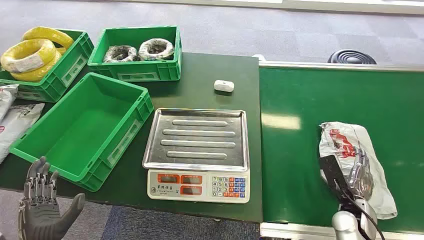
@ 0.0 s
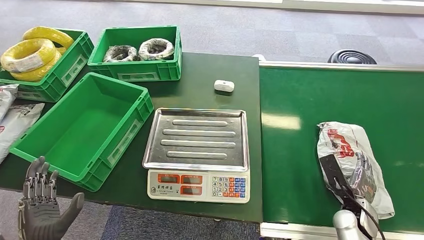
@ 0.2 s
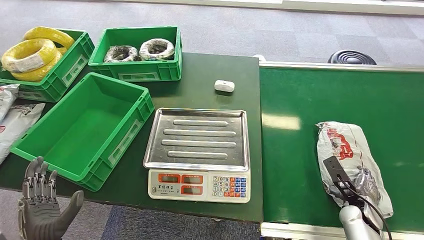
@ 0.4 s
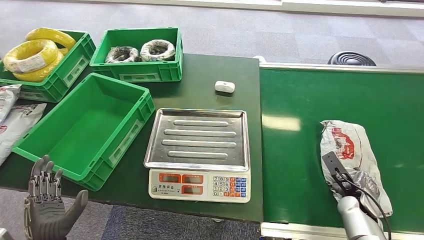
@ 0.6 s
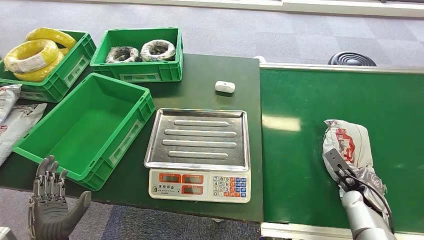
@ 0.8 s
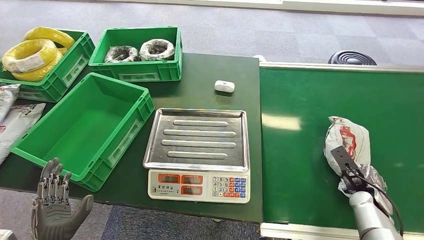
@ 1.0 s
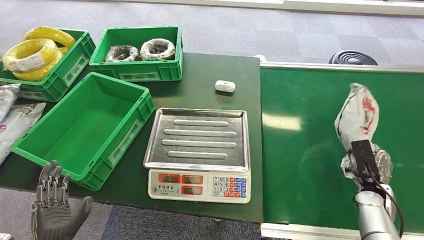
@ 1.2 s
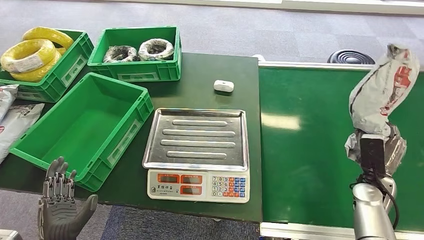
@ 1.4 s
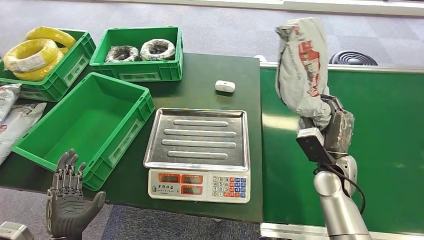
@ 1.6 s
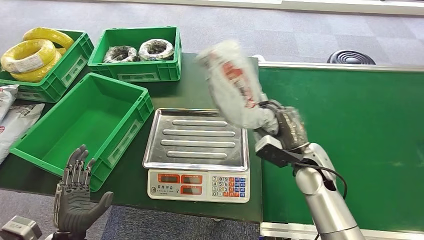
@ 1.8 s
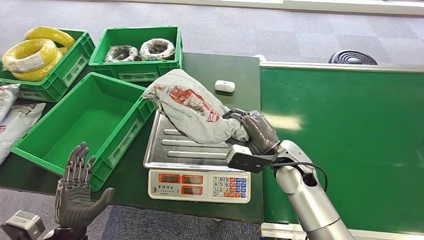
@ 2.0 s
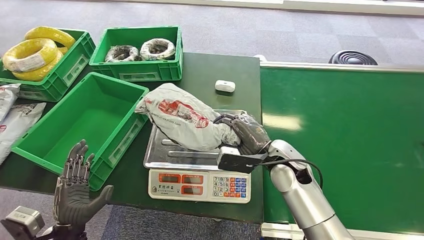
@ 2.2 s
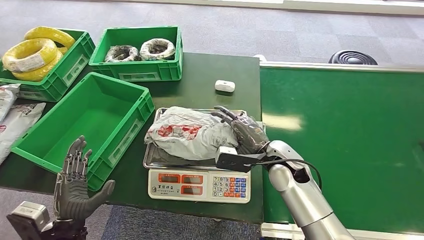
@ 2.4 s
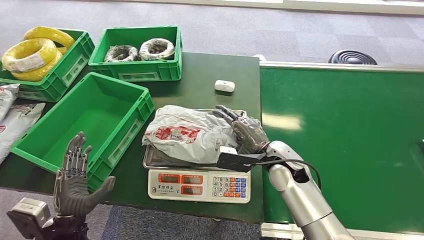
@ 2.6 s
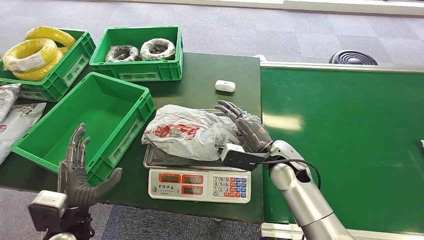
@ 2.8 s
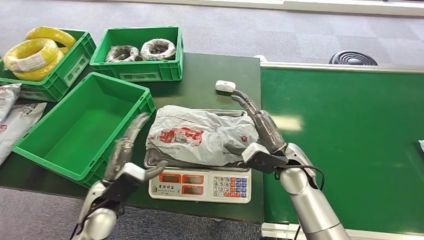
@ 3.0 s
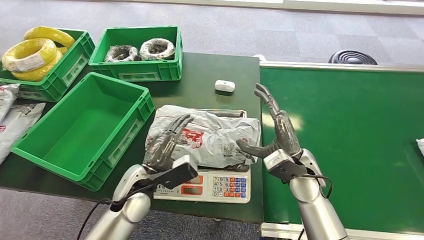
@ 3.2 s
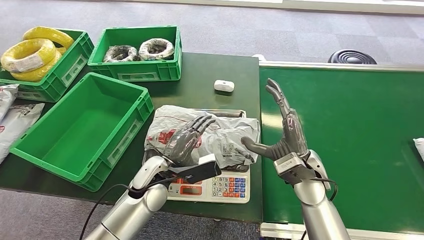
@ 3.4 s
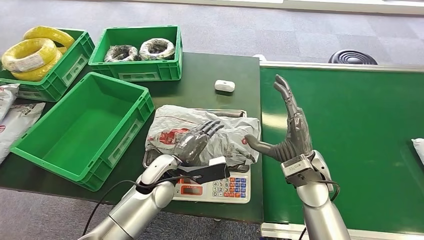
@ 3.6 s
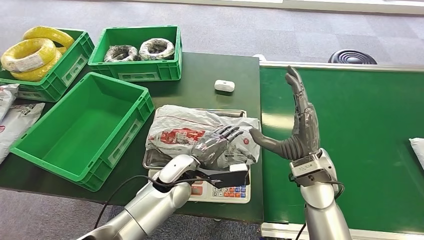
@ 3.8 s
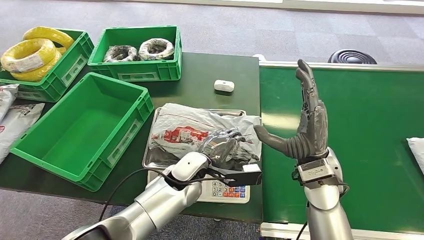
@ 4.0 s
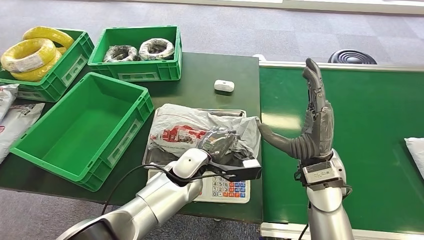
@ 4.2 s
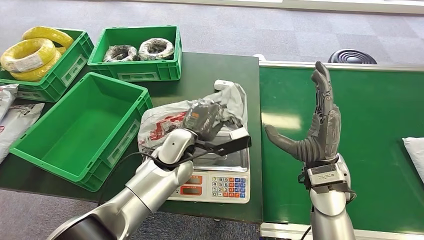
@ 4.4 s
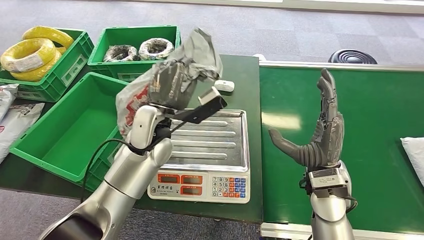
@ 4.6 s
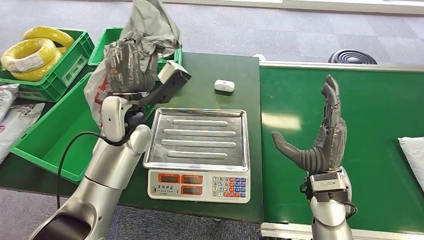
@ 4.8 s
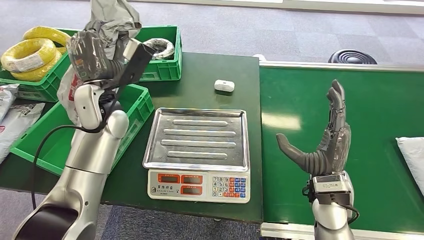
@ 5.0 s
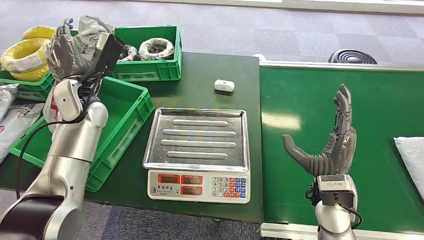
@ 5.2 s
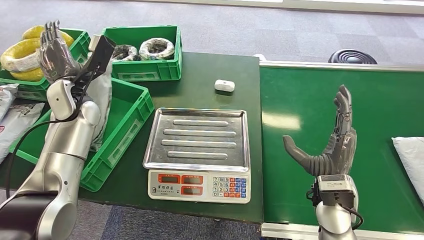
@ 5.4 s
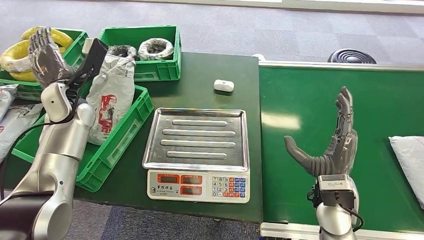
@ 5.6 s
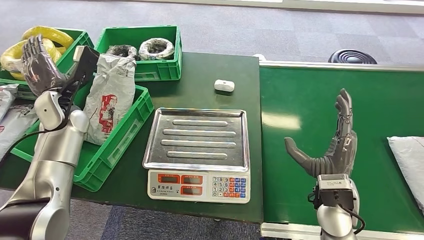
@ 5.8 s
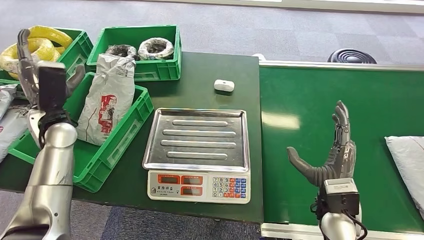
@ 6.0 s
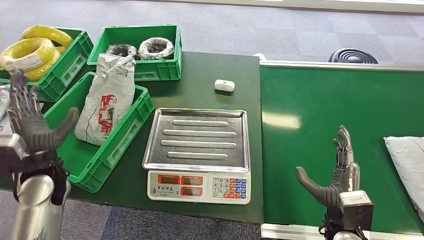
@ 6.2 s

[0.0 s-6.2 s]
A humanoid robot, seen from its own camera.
Step, 0.0 to 1.6 s: Pick up the package from the conveyor belt.
Step, 1.8 to 3.0 s: Place the package onto the inbound machine.
Step, 3.4 to 5.0 s: Pick up the package from the inbound machine.
Step, 5.2 to 6.0 s: Place the package into the parcel locker.
